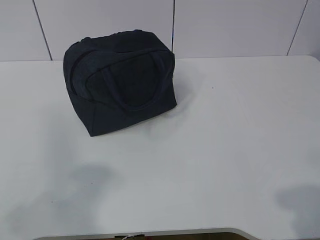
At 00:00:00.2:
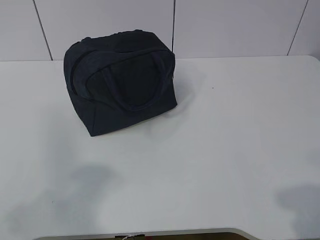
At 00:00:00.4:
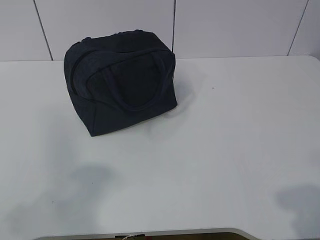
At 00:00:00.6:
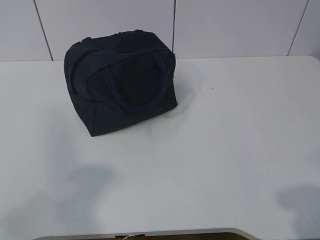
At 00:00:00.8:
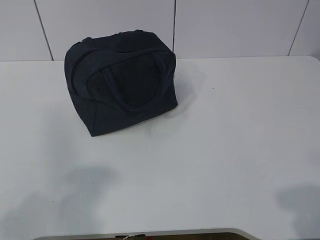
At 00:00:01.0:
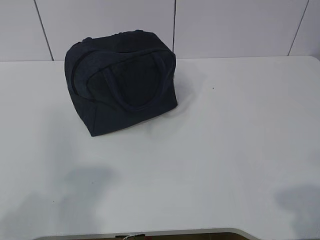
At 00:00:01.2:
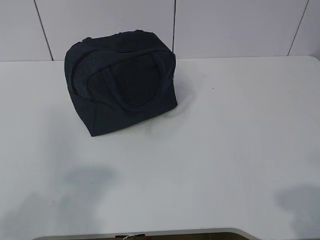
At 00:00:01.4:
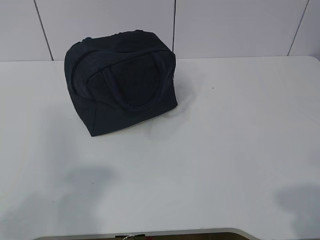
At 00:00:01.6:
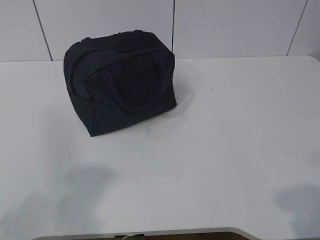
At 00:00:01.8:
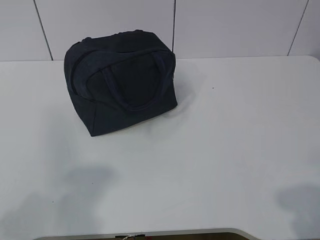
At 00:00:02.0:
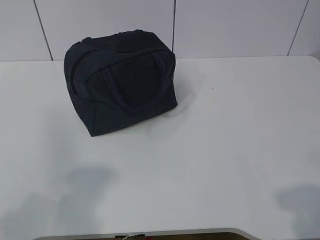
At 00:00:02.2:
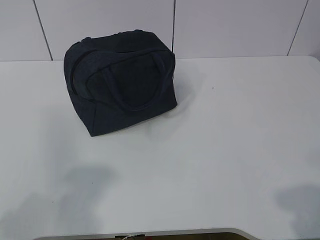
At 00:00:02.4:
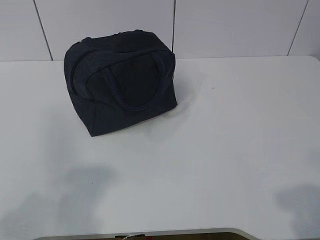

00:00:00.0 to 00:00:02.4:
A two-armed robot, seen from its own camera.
00:00:00.0 to 00:00:01.2: The grippers stay close to where they were, moving slightly.
00:00:01.2 to 00:00:02.4: Both grippers stay about where they are.
